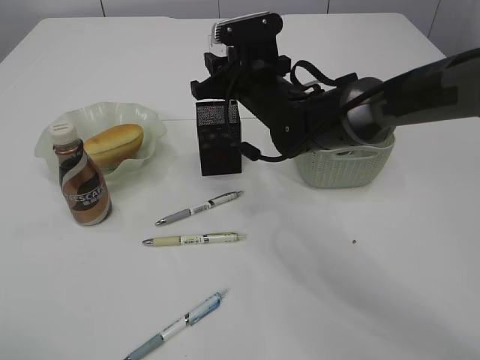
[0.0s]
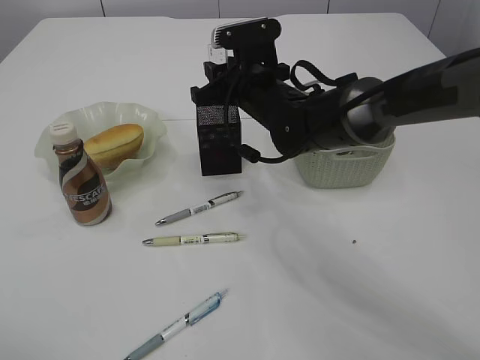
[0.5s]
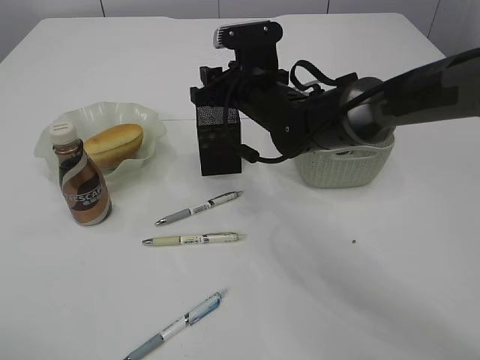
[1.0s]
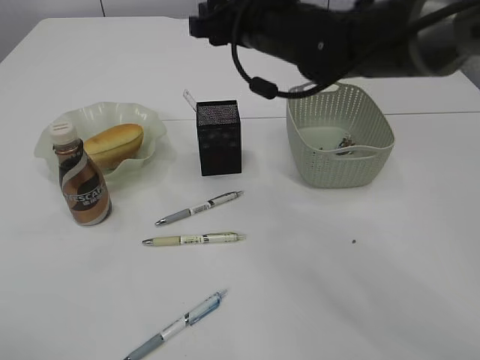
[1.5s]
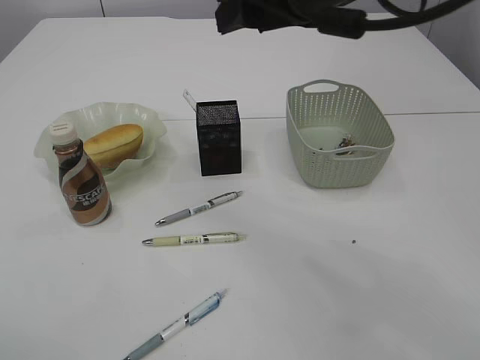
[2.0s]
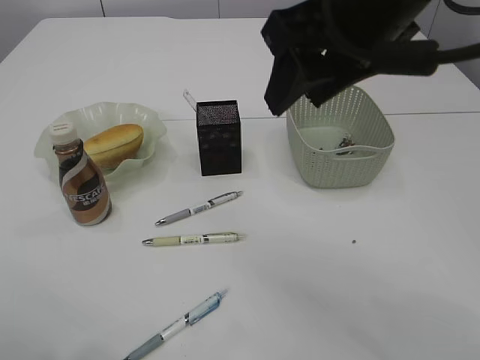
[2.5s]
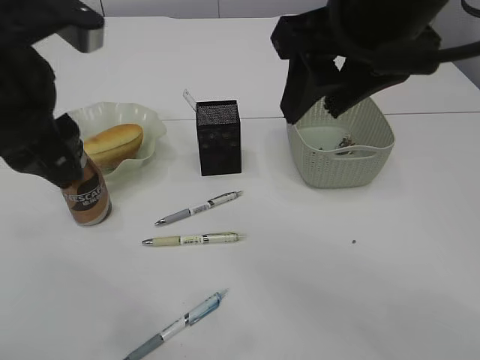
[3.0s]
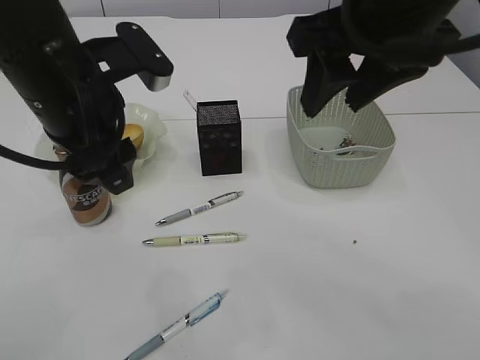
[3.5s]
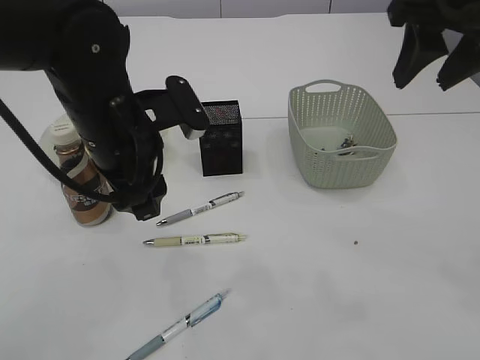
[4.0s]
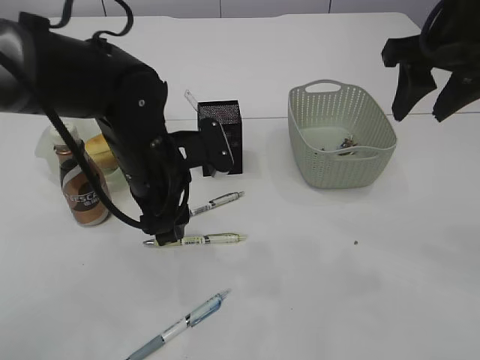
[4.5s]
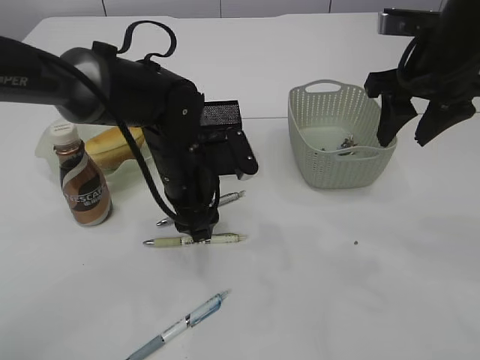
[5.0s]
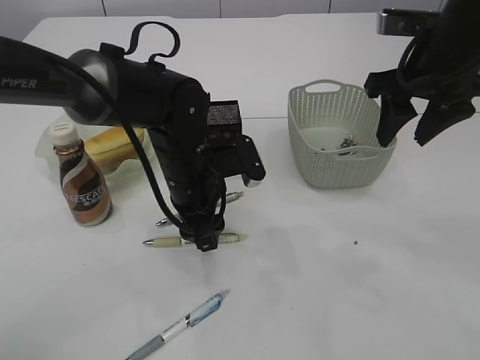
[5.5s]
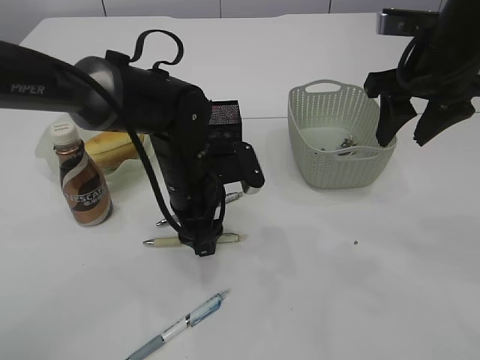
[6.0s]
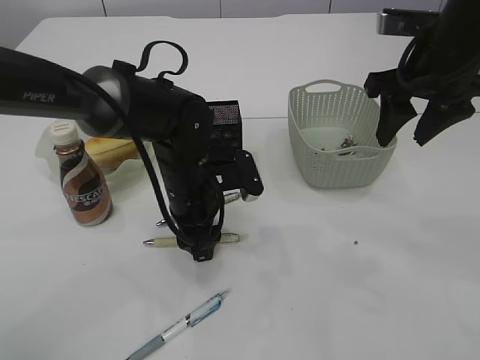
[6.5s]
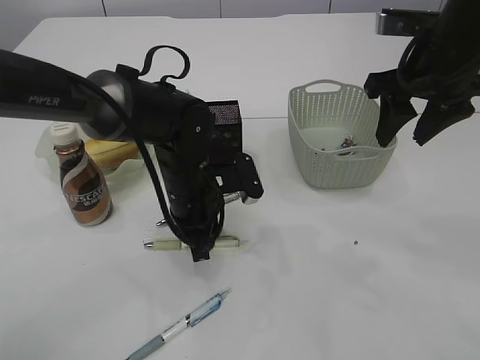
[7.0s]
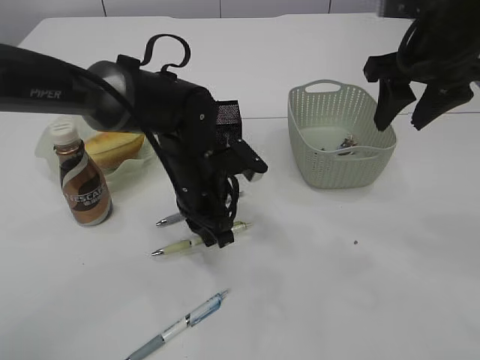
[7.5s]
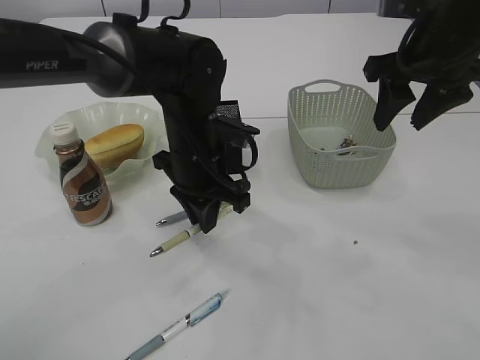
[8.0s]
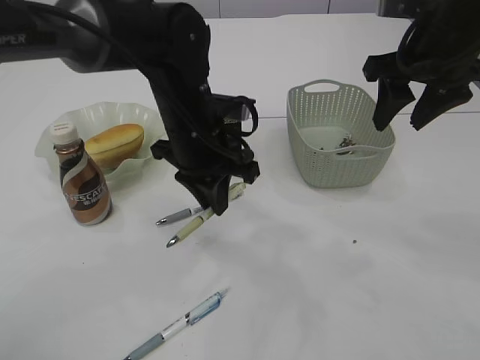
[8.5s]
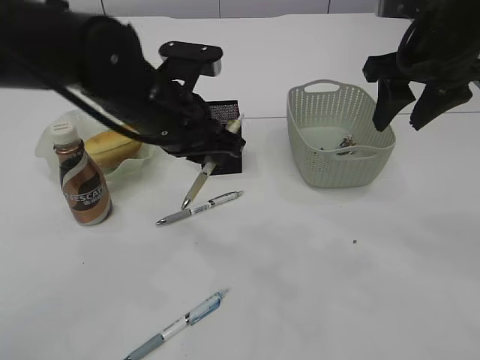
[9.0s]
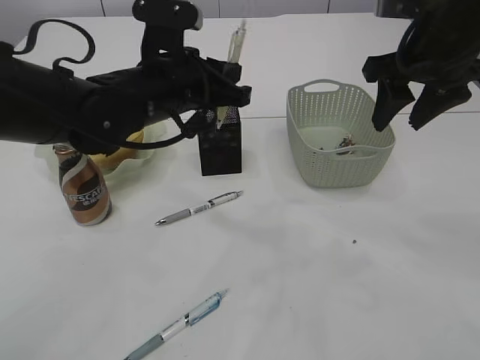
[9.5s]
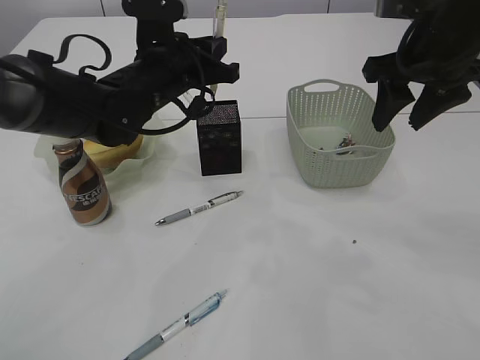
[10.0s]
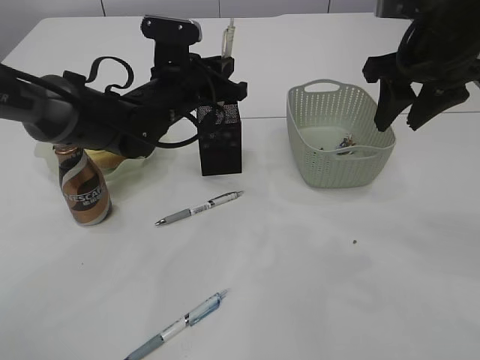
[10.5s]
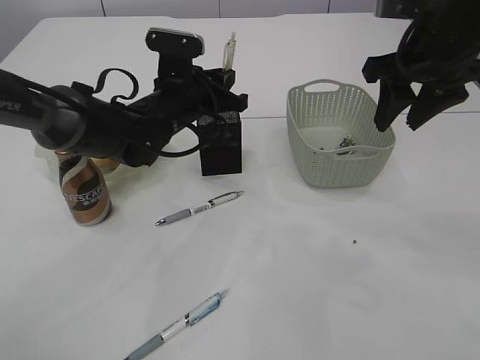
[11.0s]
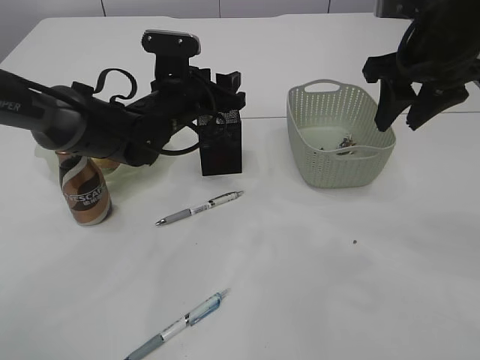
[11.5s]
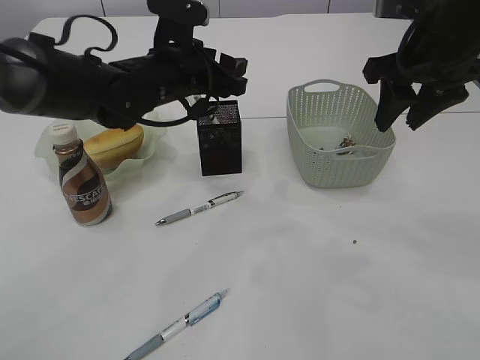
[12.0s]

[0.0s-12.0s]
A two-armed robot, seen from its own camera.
Step, 1.5s to 8.0s: Pick up the pen with left arm.
0.0s to 2.0s: The right gripper is displaced upward and backward by some 20 cm.
2.0s to 4.0s: The right gripper travels to the right by about 15 cm; the left gripper shifts some 25 cm to the right, forward and downward.
4.0s to 6.0s: The left gripper heads downward and to the right, covering approximately 10 cm. Meanwhile the right gripper heads downward and forward, covering about 10 cm.
6.0s to 8.0s: The left gripper closes up.
8.0s to 10.0s: The left gripper travels upward and forward by approximately 10 cm.
10.0s to 12.0s: The left gripper opens up.

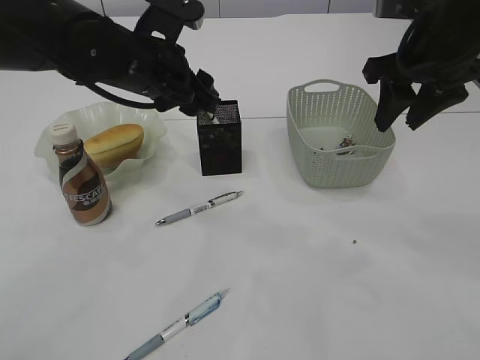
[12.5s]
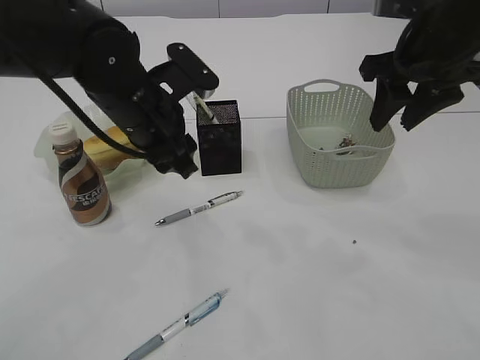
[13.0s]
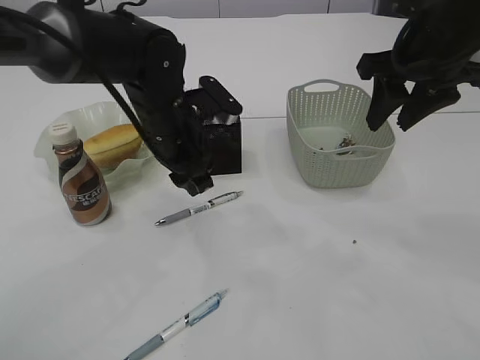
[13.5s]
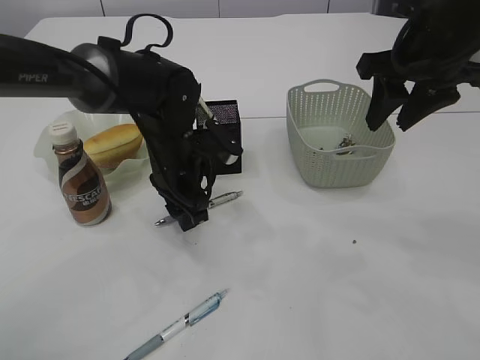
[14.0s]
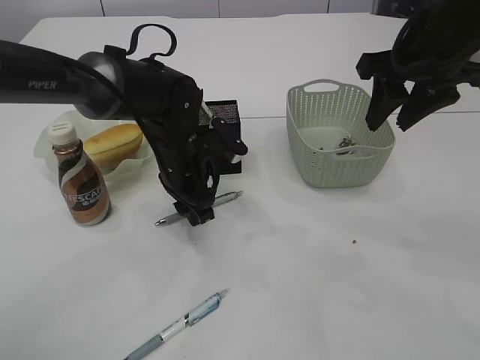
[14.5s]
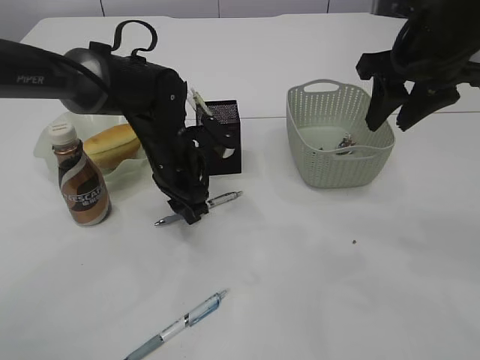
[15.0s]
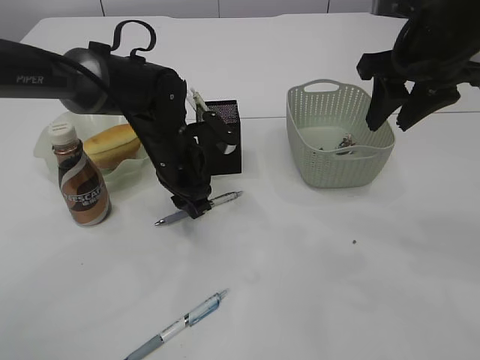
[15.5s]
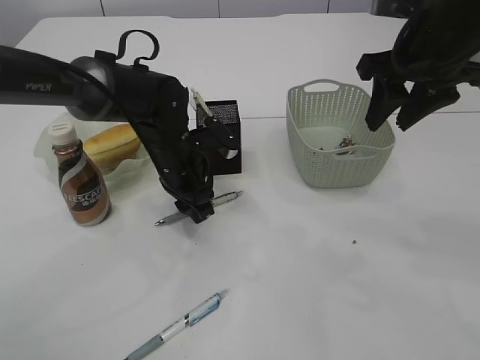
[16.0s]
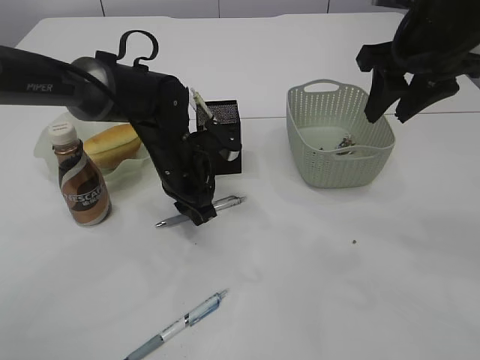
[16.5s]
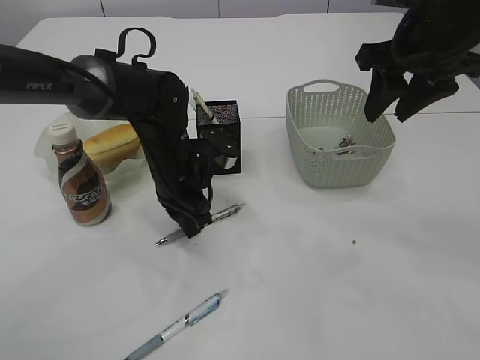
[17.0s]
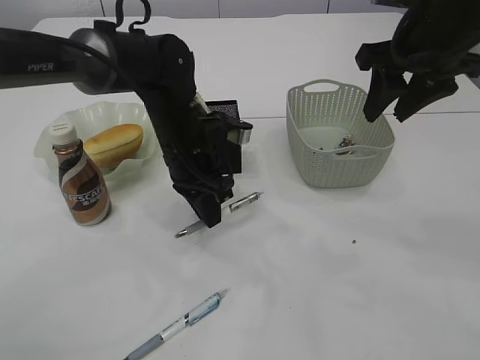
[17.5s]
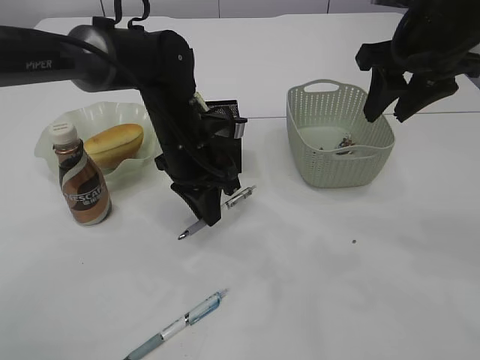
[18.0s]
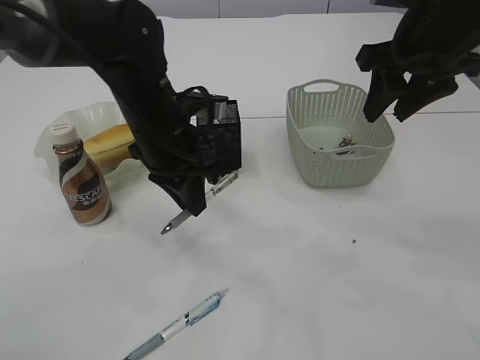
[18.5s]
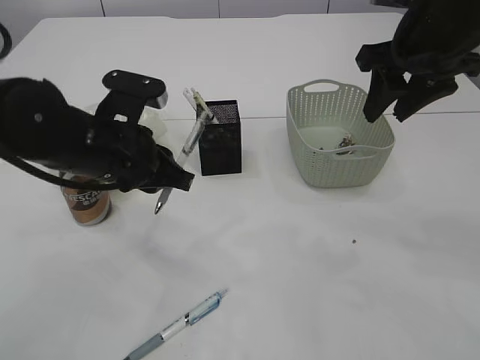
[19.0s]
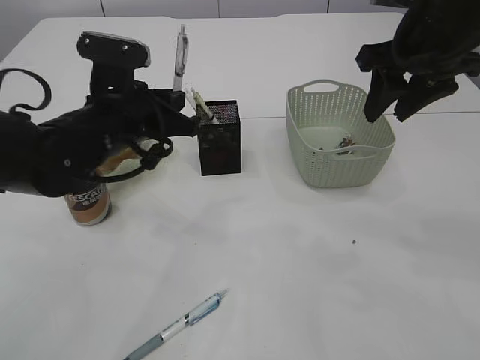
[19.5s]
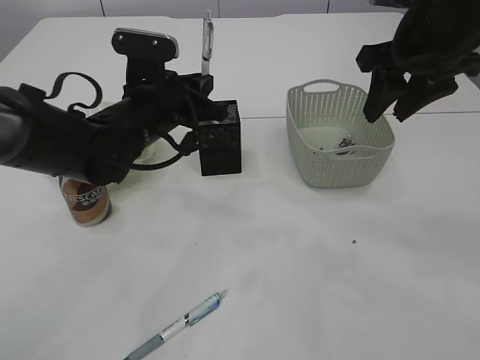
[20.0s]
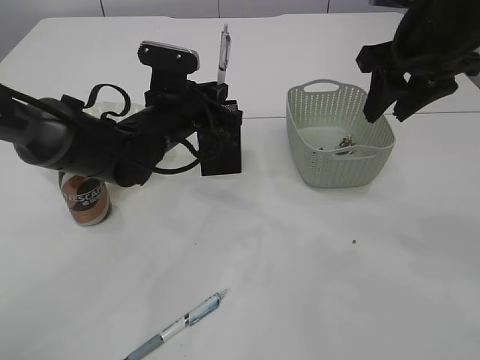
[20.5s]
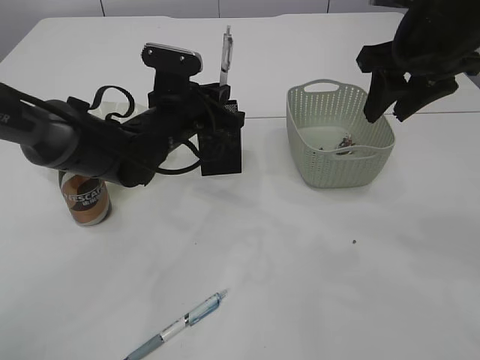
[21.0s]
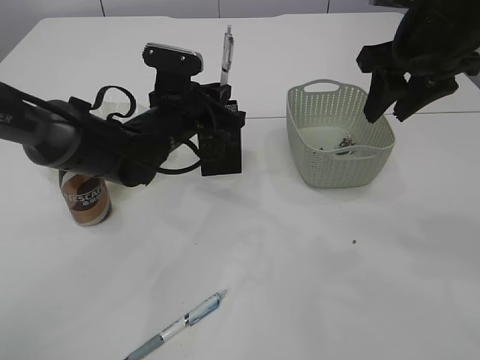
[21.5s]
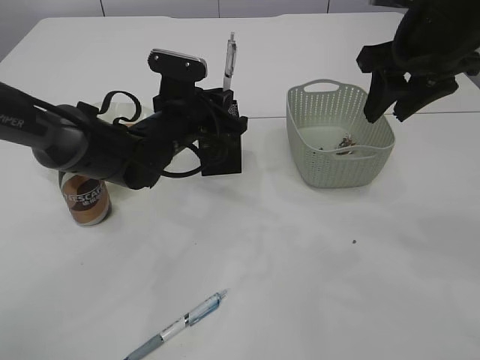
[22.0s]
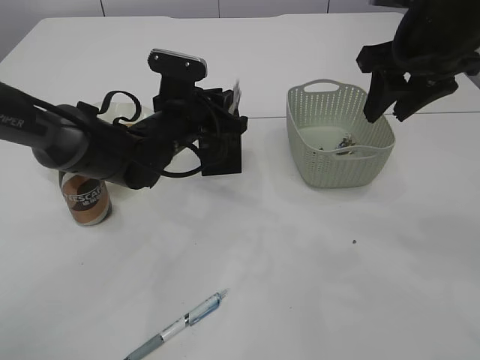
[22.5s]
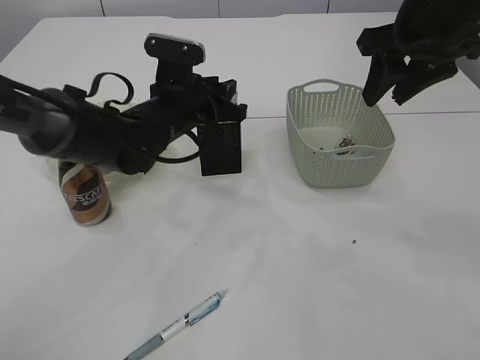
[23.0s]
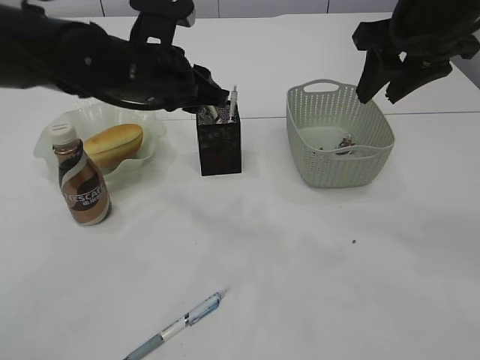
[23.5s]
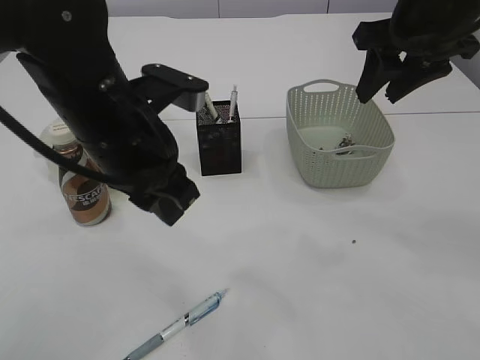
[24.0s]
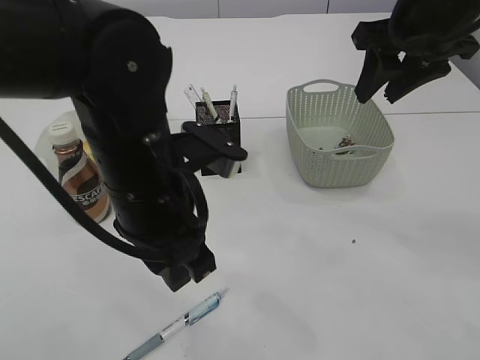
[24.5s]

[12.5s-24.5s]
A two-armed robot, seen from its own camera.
Step, 12.5s to 18.5s: Pick up the pen with left arm.
Step, 19.0s to 23.5s: Place the pen into the pen holder.
12.5s to 14.5s: The left gripper moves downward, some 10 cm.
14.5s to 16.5s: The grippers move only a little.
16.5s to 18.5s: The left gripper goes about 10 cm upward.
18.5s to 20.5s: The left gripper moves roughly 5 cm.
20.5s to 22.5s: The grippers make only small movements.
22.5s to 24.5s: The left gripper heads backward and upward, covering some 20 cm.

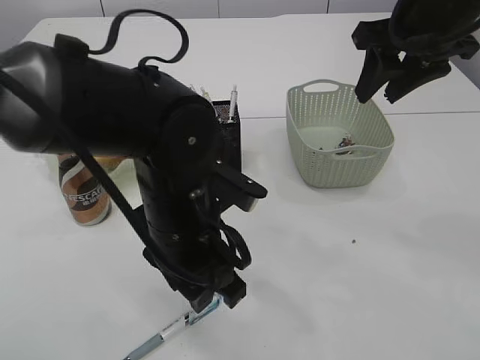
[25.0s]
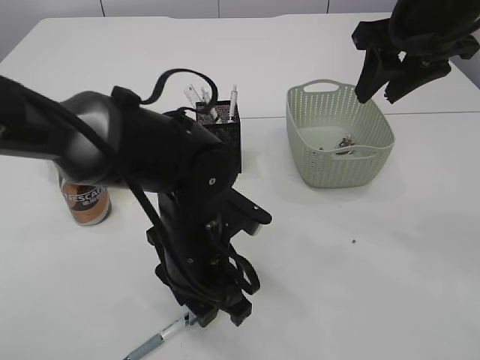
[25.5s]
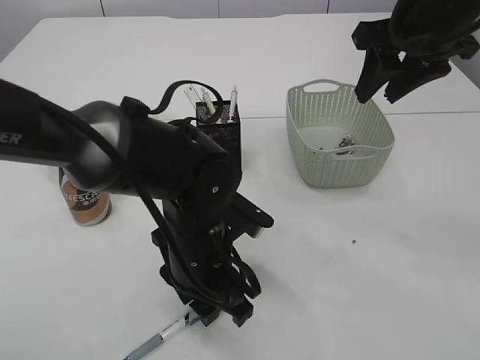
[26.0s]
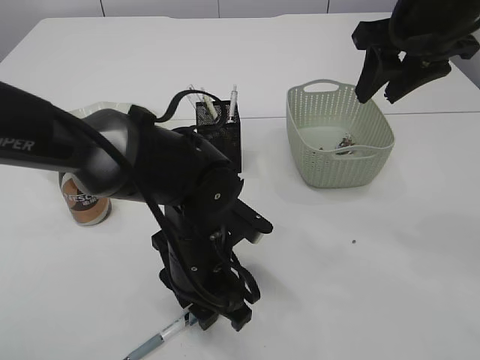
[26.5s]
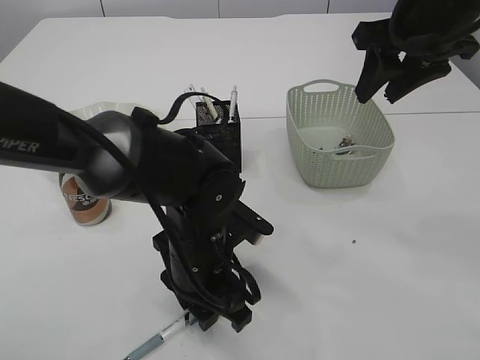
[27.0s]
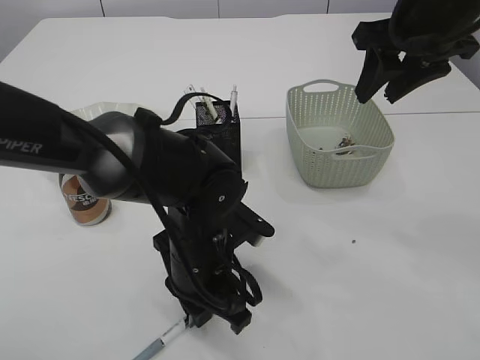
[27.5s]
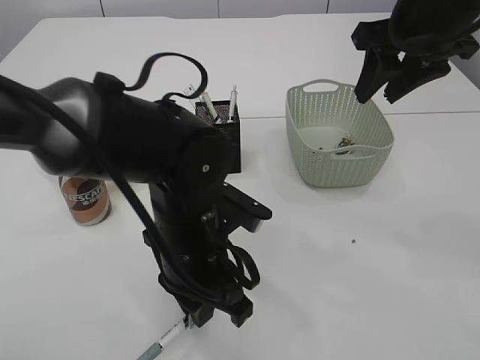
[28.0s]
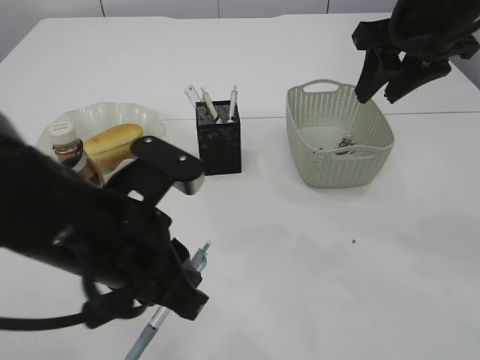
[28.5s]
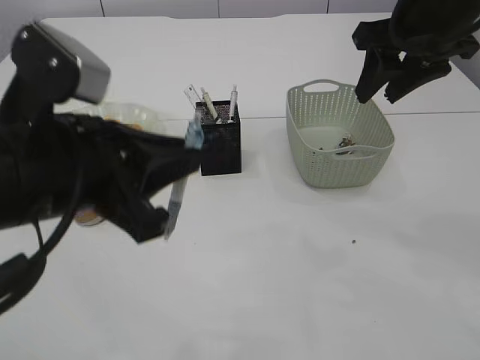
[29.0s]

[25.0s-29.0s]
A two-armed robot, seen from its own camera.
Step, 25.0s to 28.5s: Pick up the pen with left arm.
25.0s to 27.0s: The left gripper heads downward, covering roughly 5 cm.
27.0s to 29.0s: The left gripper travels upward, to the left and backward by about 20 cm, and closes up.
